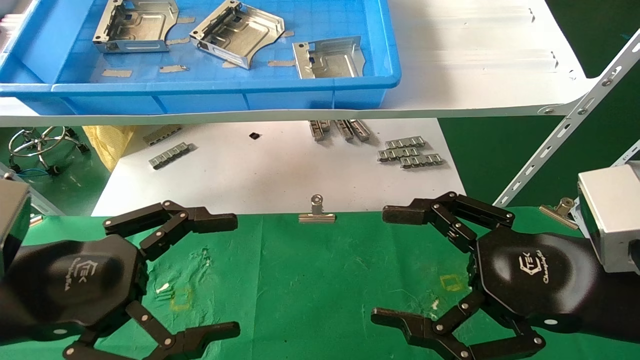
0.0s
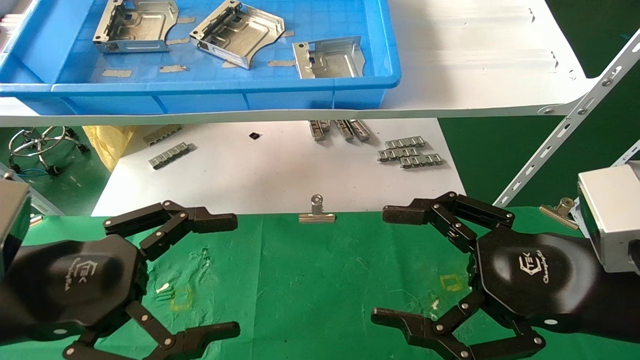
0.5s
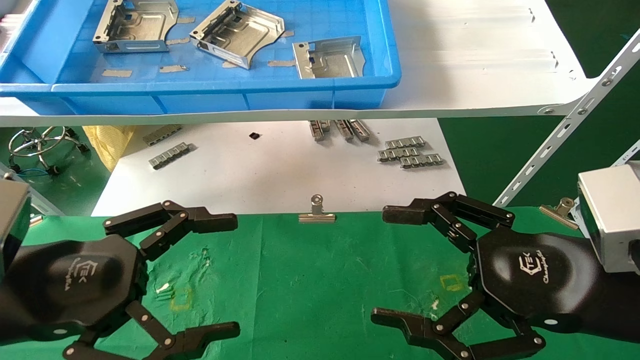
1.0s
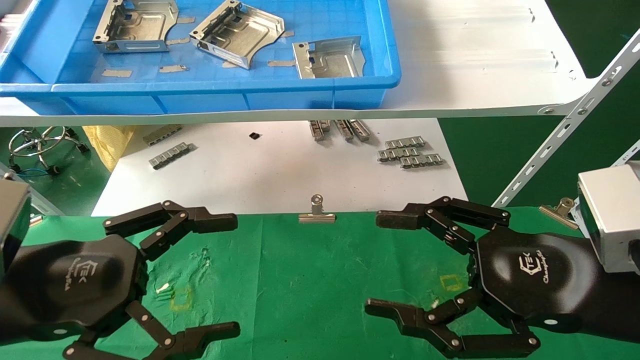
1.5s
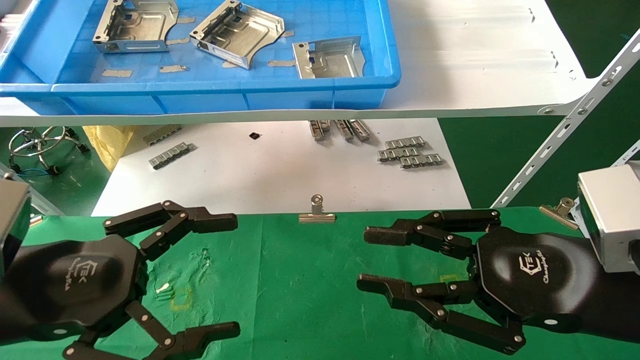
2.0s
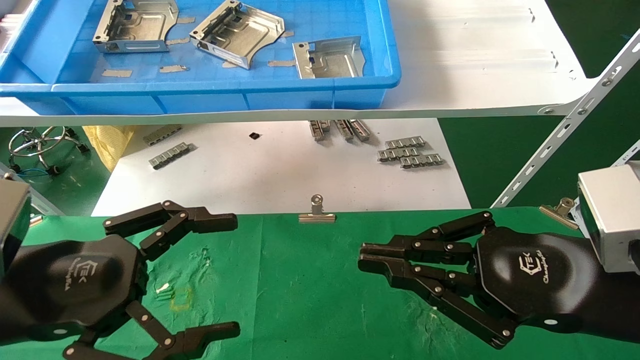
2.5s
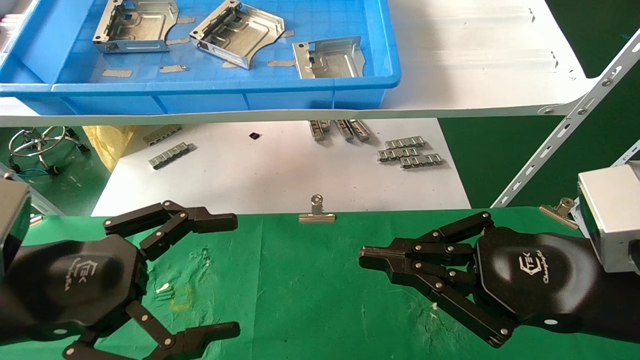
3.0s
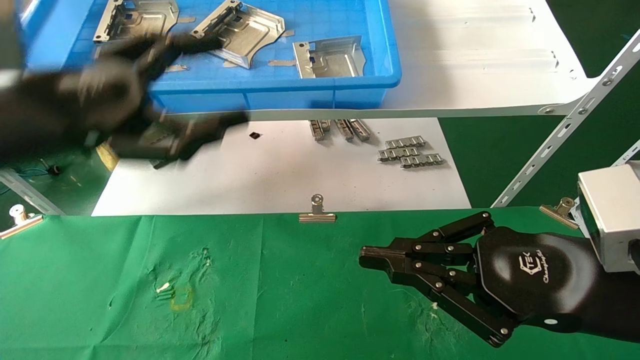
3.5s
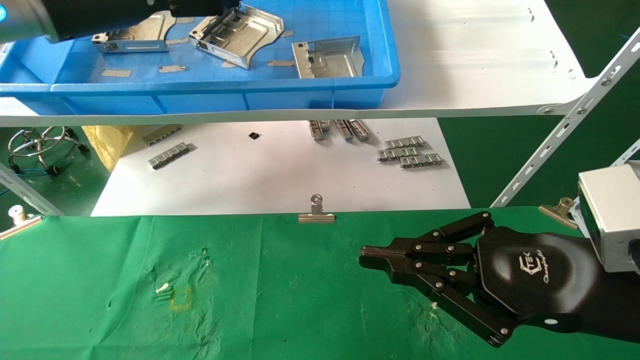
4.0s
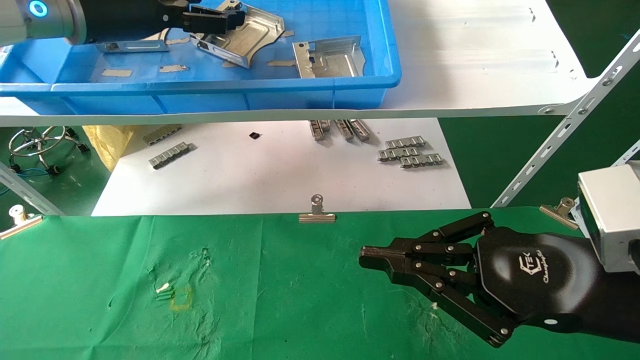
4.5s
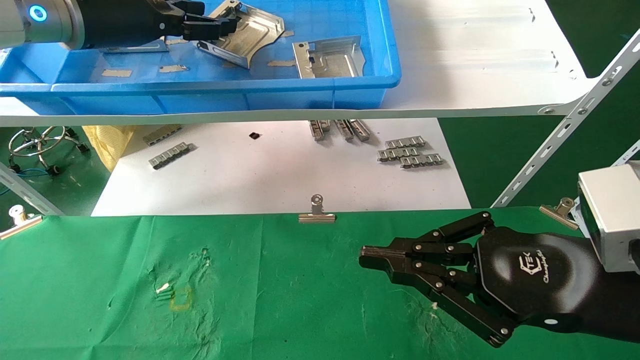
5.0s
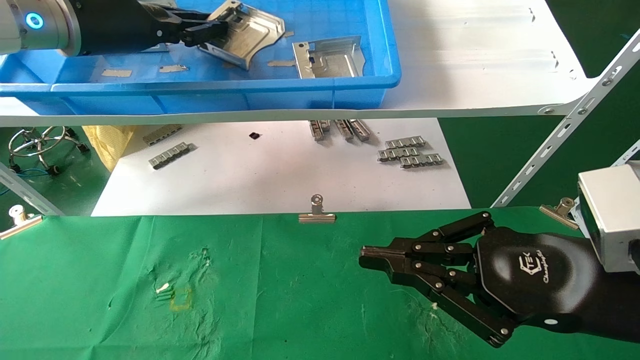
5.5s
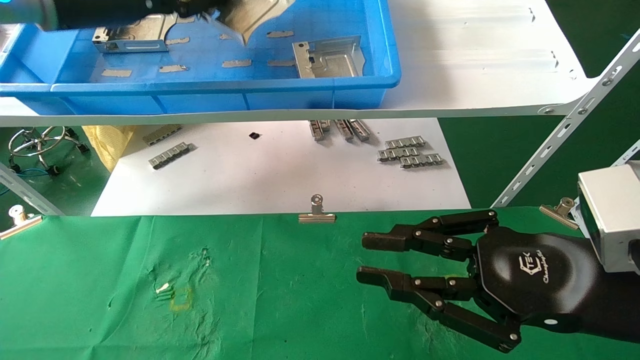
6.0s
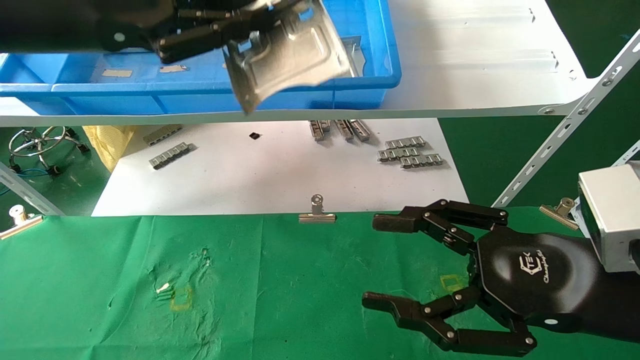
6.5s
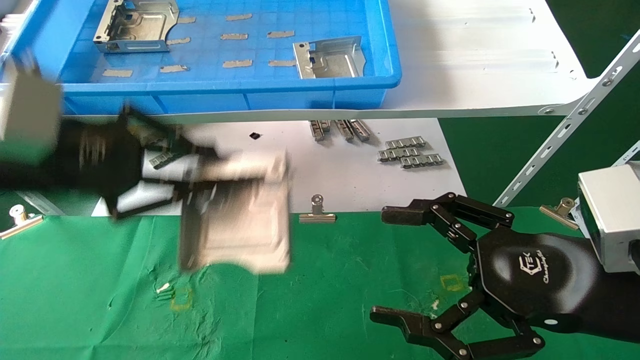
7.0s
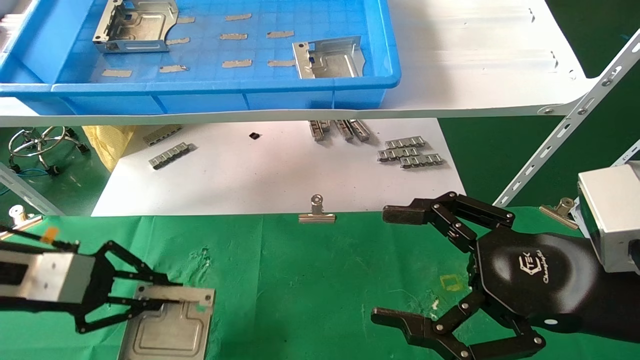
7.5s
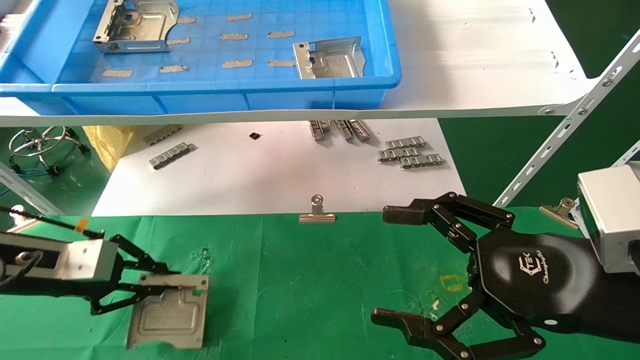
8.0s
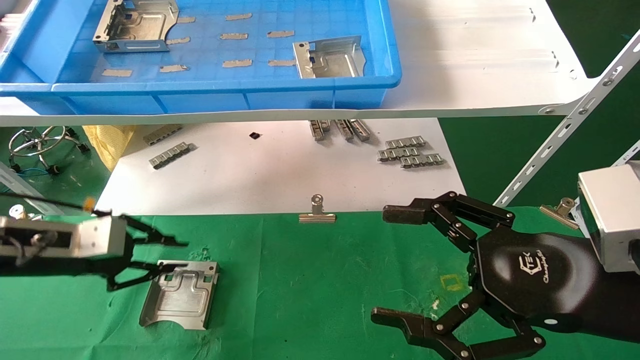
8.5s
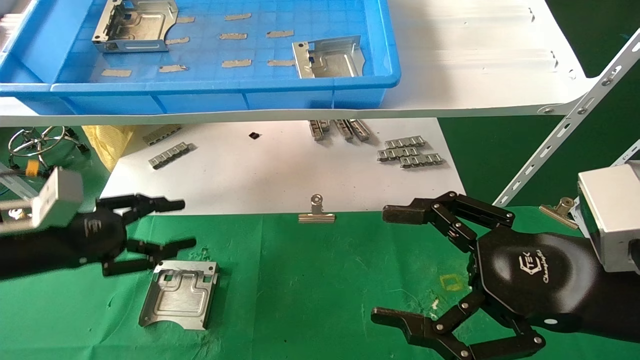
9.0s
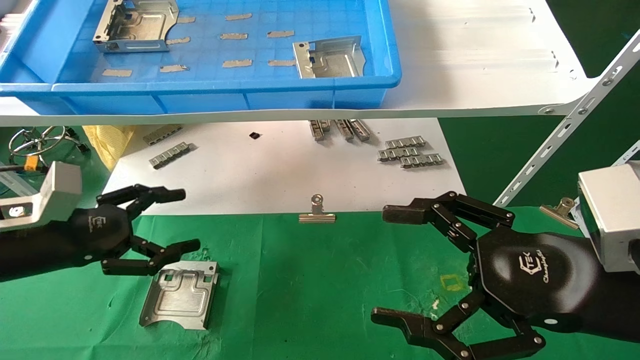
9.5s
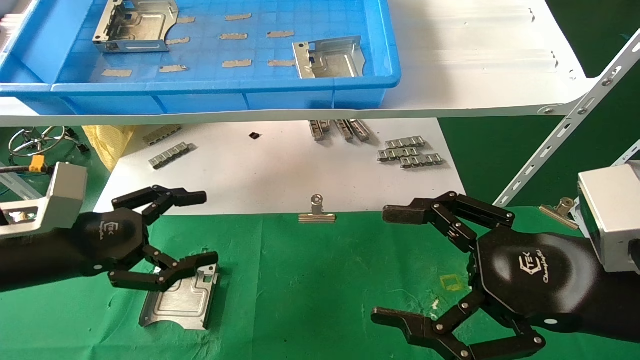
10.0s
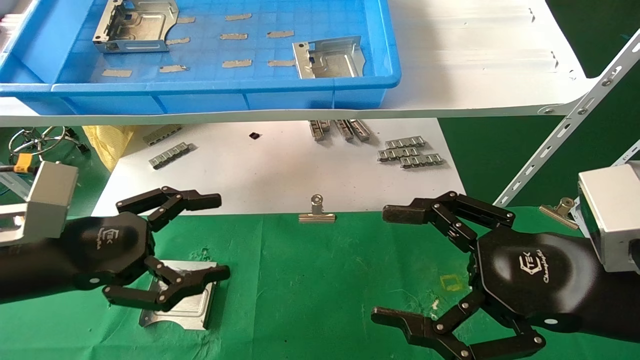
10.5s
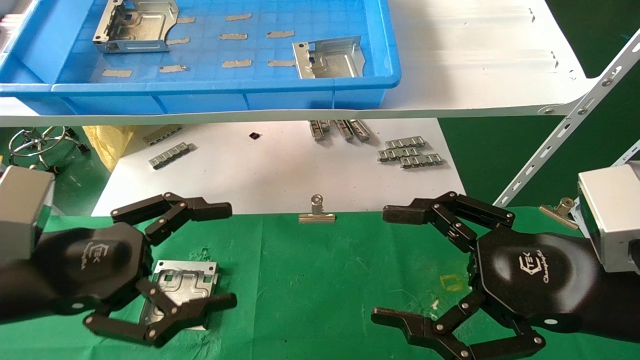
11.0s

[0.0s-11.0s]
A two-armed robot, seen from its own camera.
Task of the whole recording: use the mechanical arm to pick up the parts and place them on the table.
Step, 3.5s to 5.5s: Pick up the hard drive bracket from the feeding area.
Step, 6.0s to 8.5s: Place the hard drive bracket into the box.
0.0s to 2.0s: The right gripper closes its fingers.
2.0s to 3.5s: The left gripper is displaced upward and forward by about 15 cm; the right gripper closes its fingers.
3.5s to 5.5s: The left gripper heads forward and upward, covering approximately 15 cm, and closes.
5.5s to 7.5s: The right gripper opens up. The left gripper travels downward and backward by approximately 25 cm.
7.5s to 9.0s: The left gripper opens up.
9.0s to 11.0s: The left gripper goes roughly 15 cm backward and to the right, and opens its fingers.

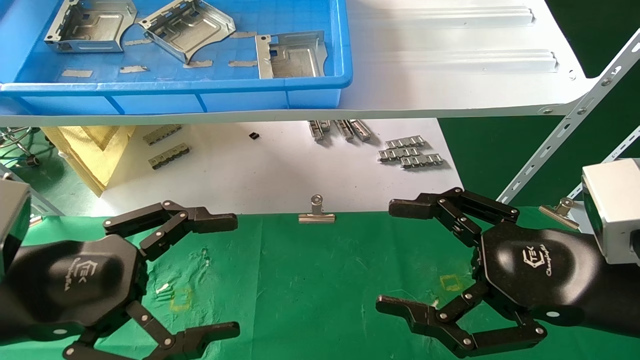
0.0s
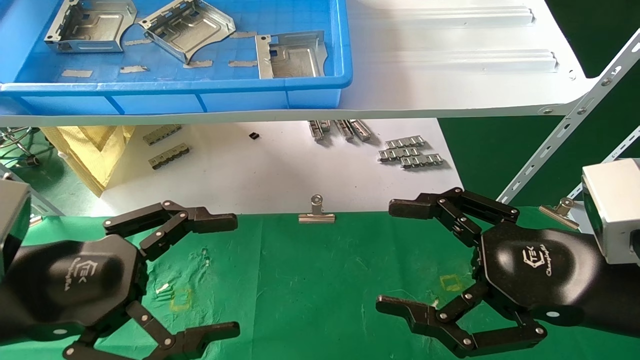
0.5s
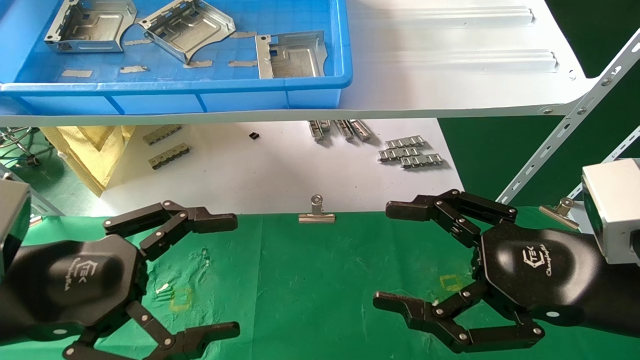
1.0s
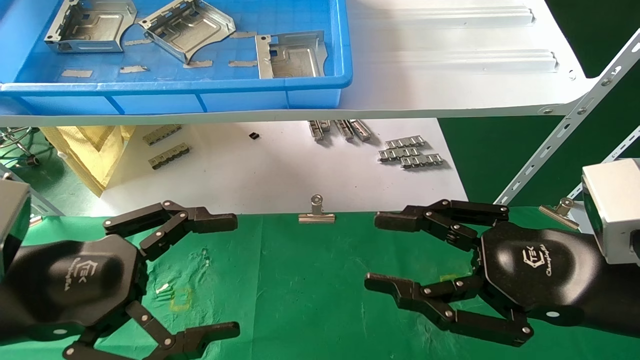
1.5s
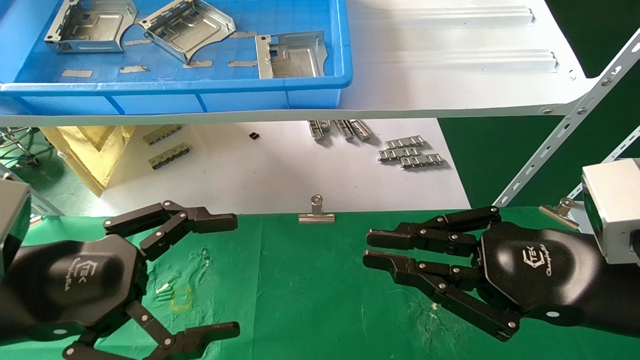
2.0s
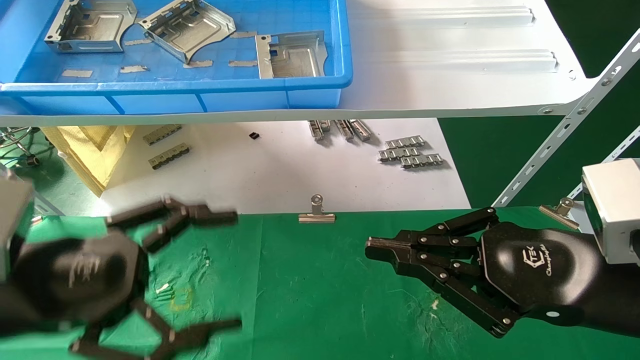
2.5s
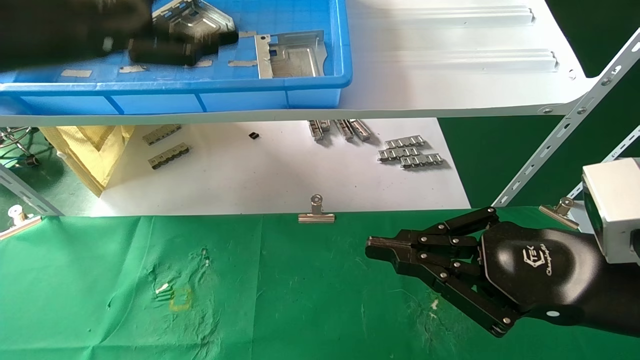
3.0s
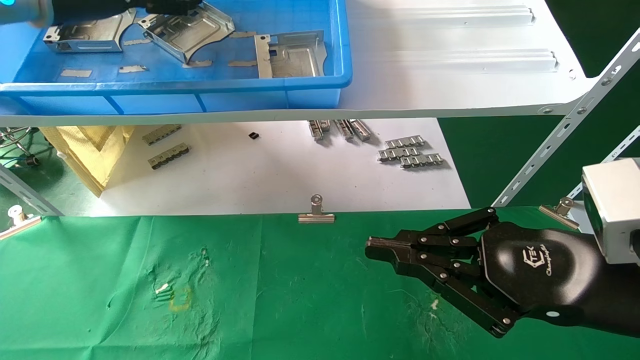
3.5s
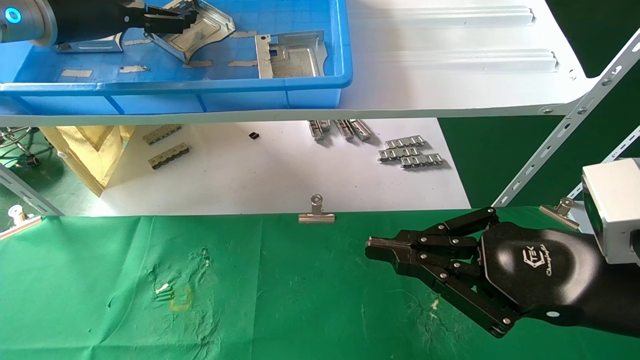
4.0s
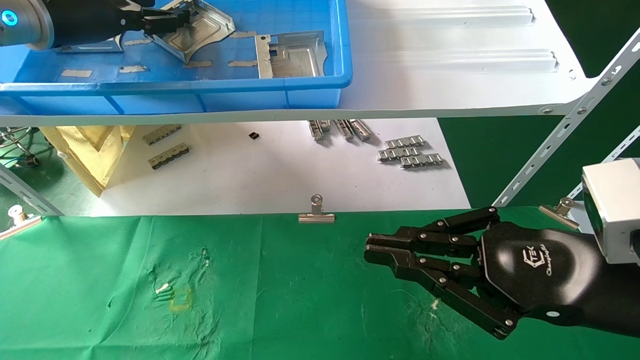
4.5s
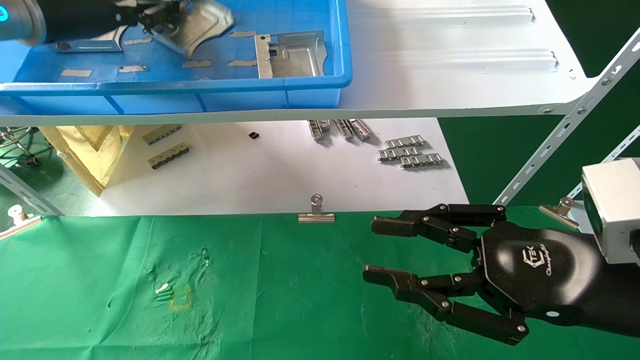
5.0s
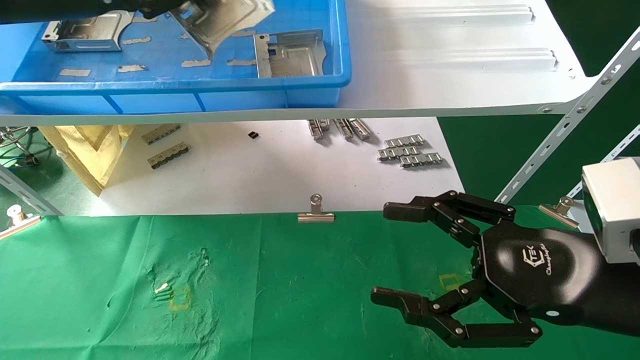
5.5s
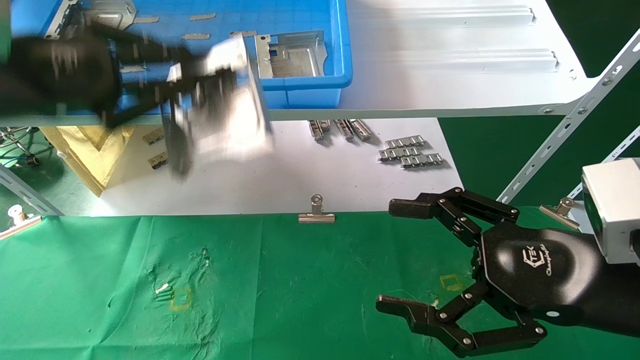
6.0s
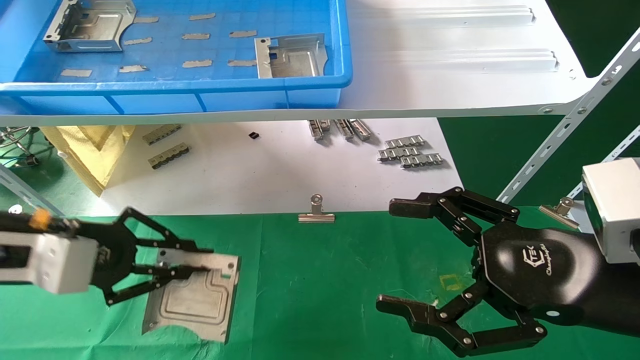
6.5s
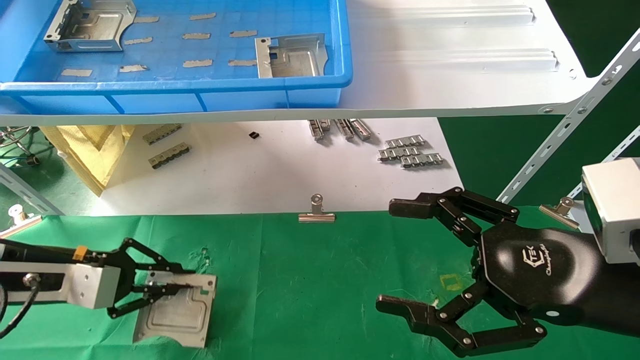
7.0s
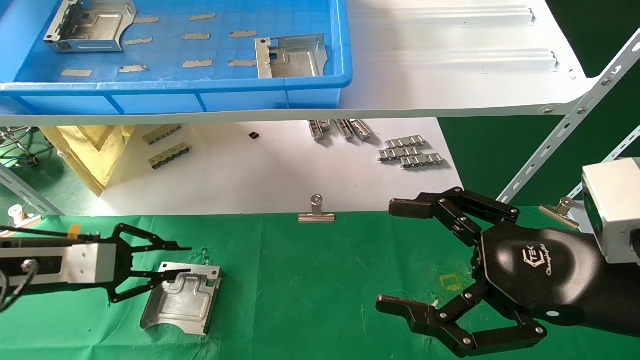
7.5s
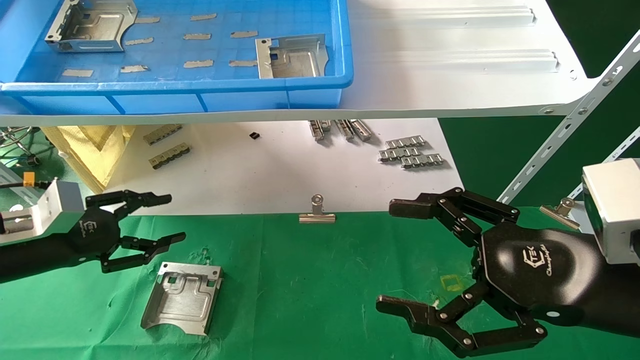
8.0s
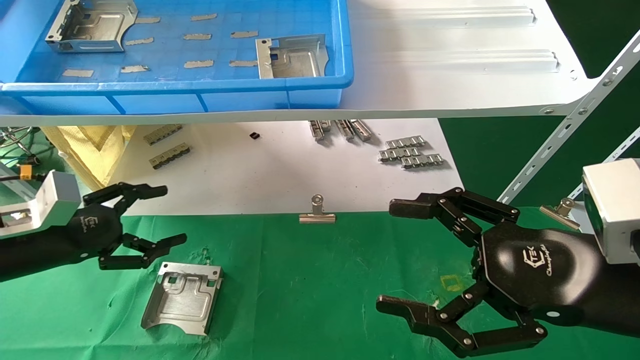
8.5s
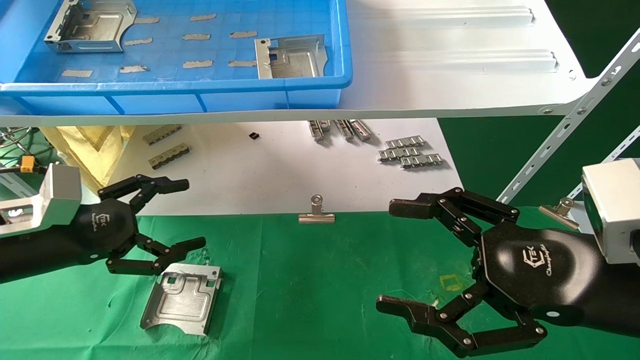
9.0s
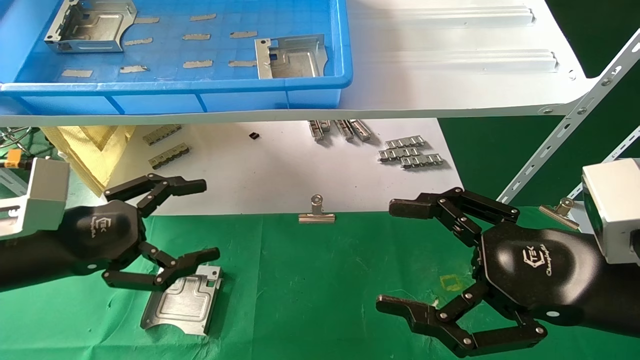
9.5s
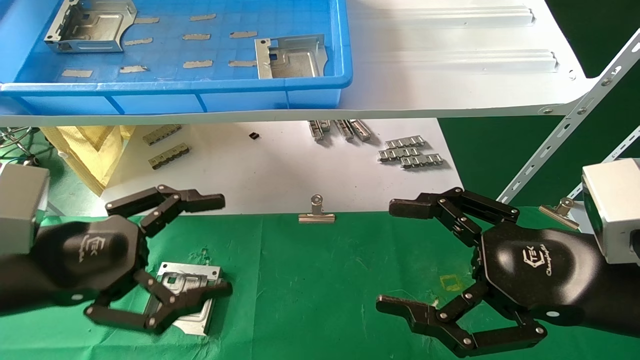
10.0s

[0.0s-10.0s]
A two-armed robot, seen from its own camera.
Task of the whole recording: use the mechanical arm to pick up the parts and place them on the table.
Step, 2.0s to 4.5s: Pick up the hard drive bracket from the feeding area.
Step, 5.0s to 7.5s: Place the hard drive bracket into the box.
0.0s to 2.0s: The right gripper closes.
2.0s to 4.0s: The left gripper shifts some 30 cm upward and forward.
4.0s to 6.0s: The left gripper travels backward and downward by roughly 15 cm, and closes up; the right gripper opens up.
6.0s to 8.0s: The left gripper travels downward by approximately 20 cm, and opens up.
8.0s to 10.0s: The left gripper is displaced backward and to the right by some 15 cm, and opens.
